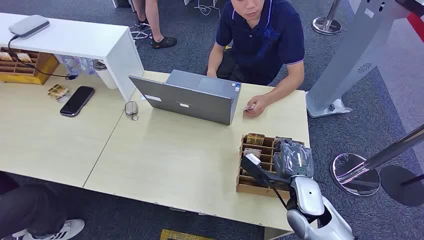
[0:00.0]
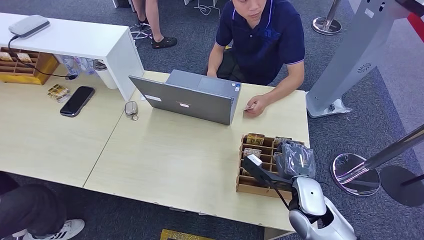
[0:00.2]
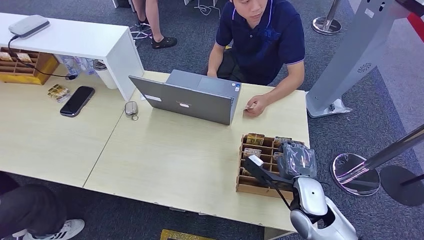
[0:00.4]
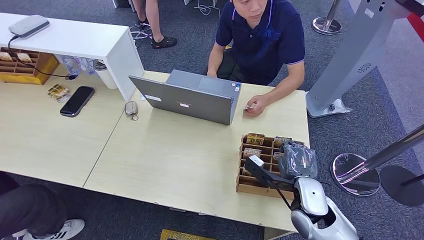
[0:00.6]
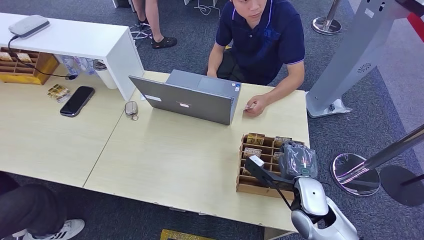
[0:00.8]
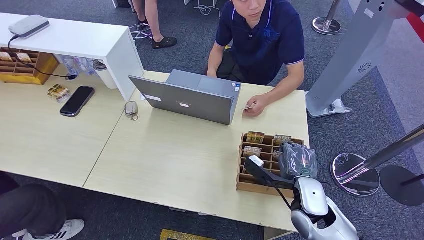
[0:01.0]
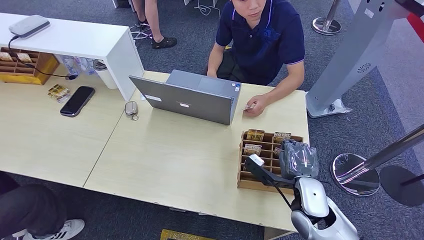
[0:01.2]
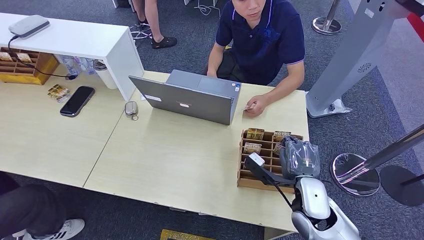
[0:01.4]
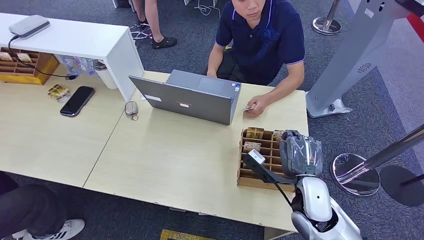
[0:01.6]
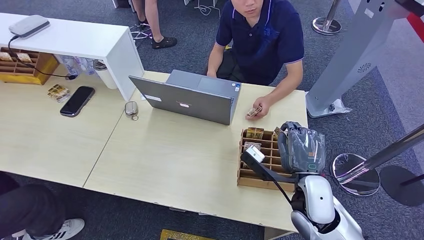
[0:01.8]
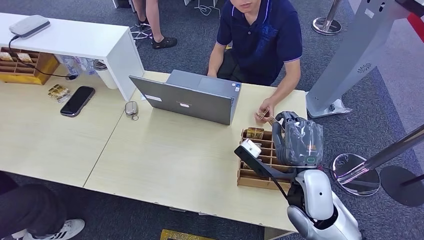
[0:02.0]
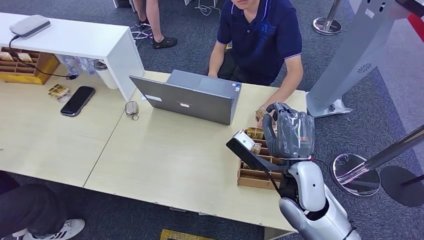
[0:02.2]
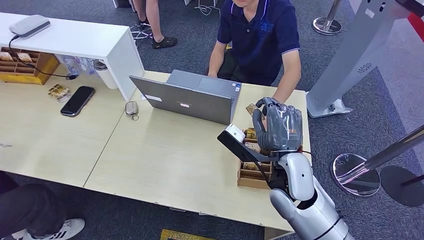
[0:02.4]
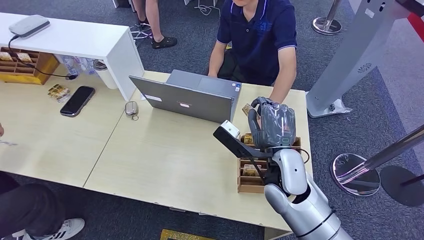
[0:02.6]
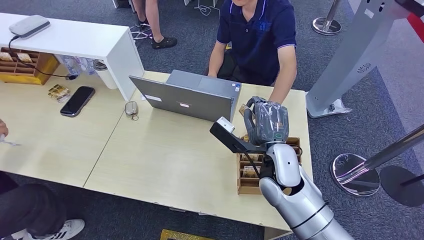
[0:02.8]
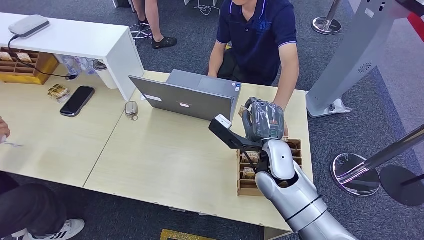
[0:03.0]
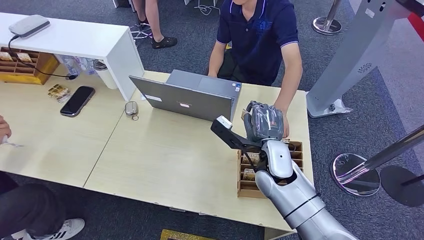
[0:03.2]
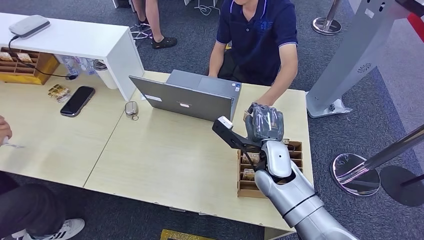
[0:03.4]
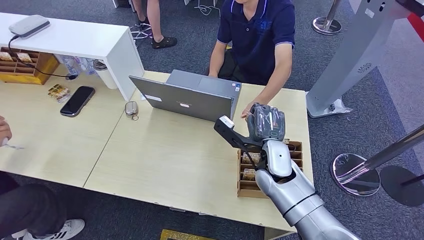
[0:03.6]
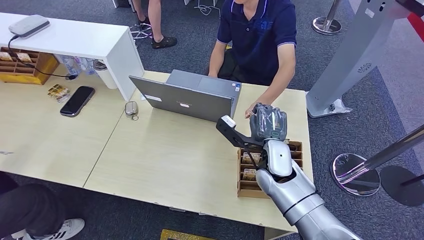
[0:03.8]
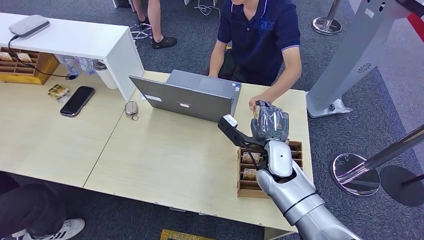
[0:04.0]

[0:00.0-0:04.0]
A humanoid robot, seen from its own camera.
Step, 0:00.0 to 0:01.8: Pick up the room card from the card holder.
Step, 0:03.6 to 0:04.0: Hand the room card to the target.
0:01.4 to 0:02.6: The right hand is displaced to the left and upward by some 10 cm.
0:02.6 to 0:04.0: The right hand shifts approximately 5 cm forward.

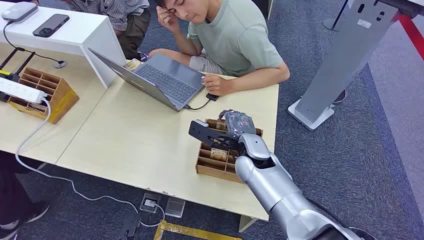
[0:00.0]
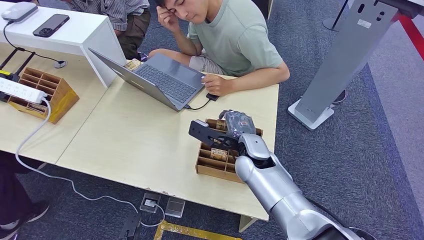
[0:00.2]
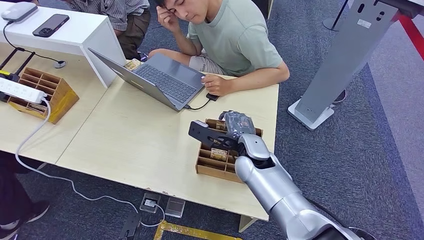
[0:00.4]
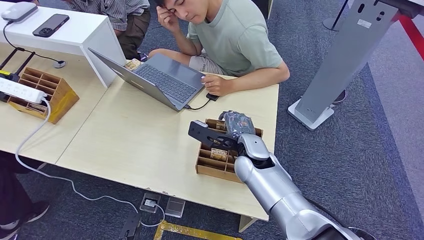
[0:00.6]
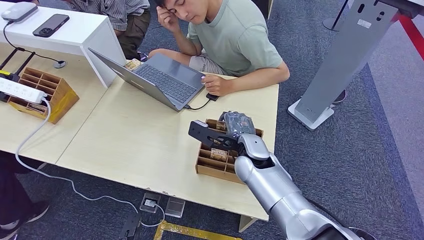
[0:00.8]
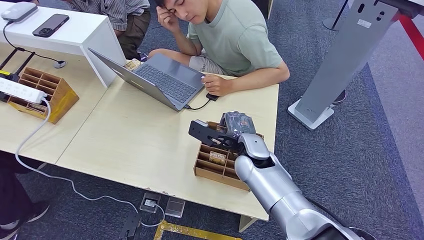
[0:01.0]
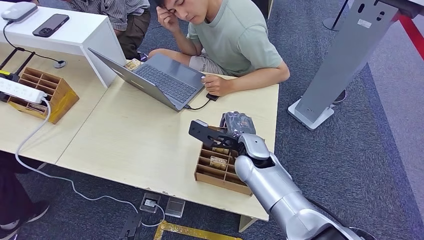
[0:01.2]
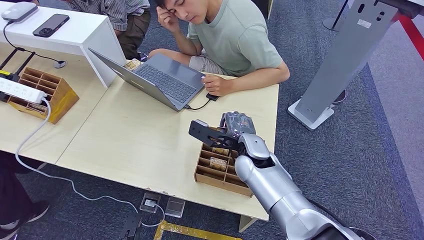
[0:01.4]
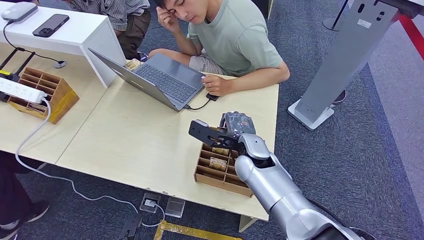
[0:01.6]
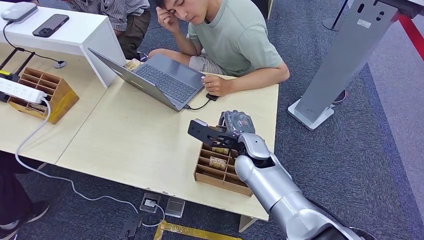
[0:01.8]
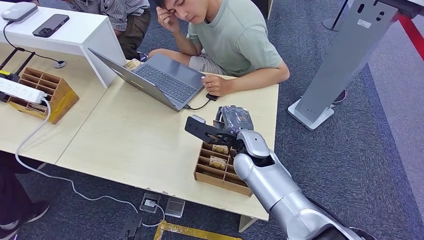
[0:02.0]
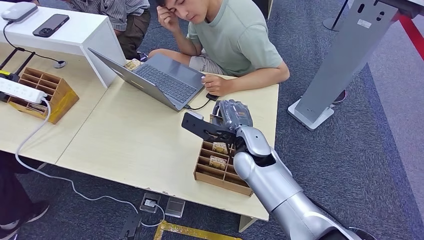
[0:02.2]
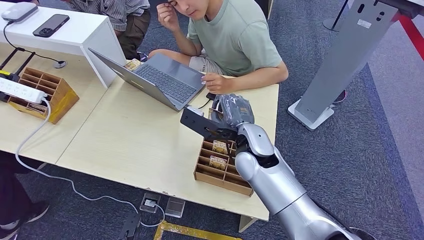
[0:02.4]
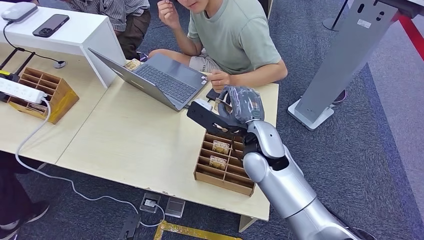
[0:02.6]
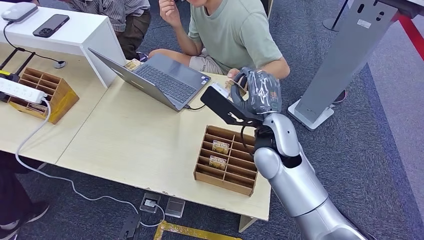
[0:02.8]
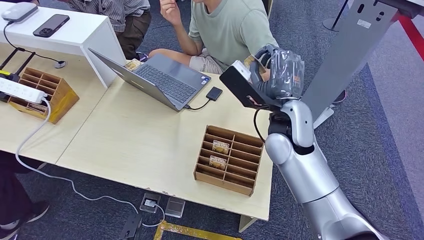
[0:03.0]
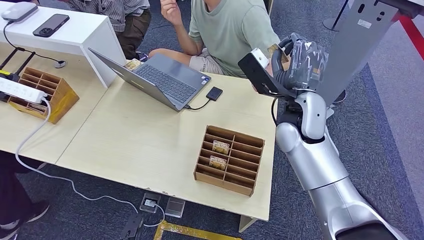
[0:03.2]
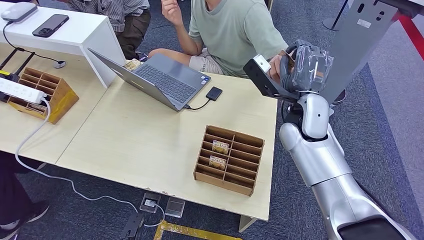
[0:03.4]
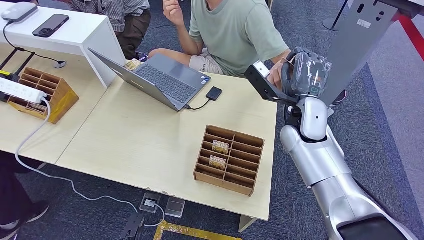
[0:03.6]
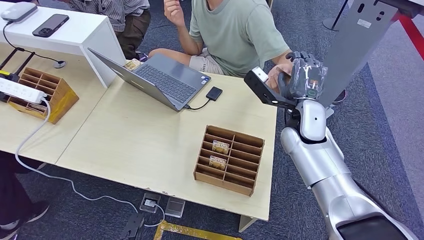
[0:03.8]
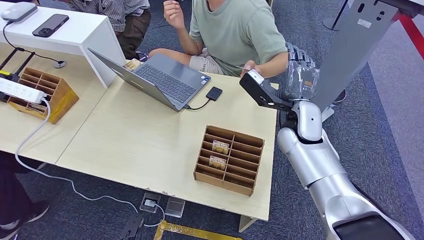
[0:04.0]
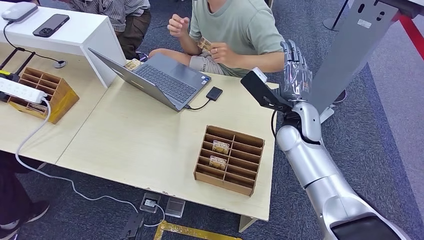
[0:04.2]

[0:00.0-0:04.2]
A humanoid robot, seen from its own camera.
Step, 0:00.0 to 0:02.4: Pick up the room card from the card holder.
Step, 0:03.4 to 0:04.2: Hand the room card to the target.
0:01.4 to 0:02.8: The right hand heads upward, covering some 10 cm.
0:02.8 to 0:04.2: The right hand travels to the right and forward by some 10 cm.
